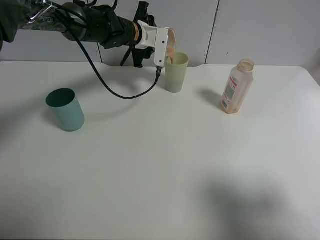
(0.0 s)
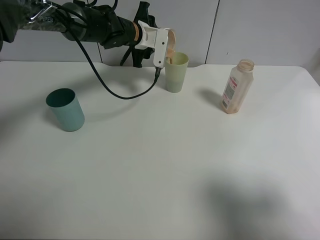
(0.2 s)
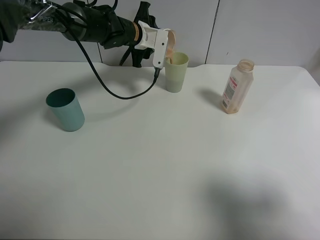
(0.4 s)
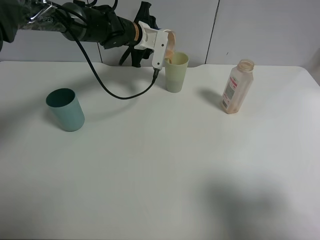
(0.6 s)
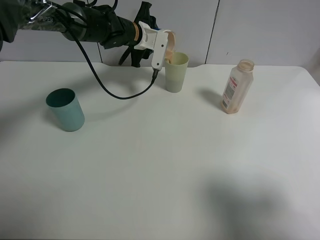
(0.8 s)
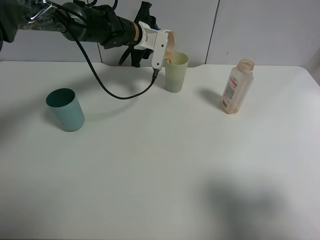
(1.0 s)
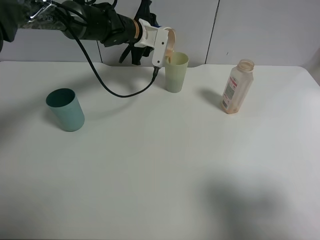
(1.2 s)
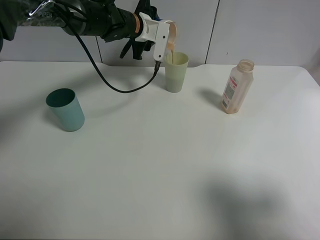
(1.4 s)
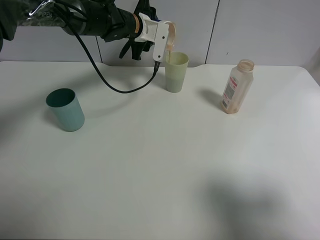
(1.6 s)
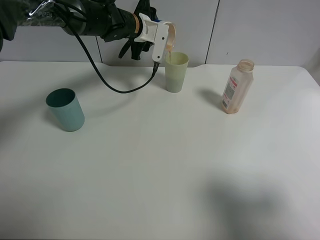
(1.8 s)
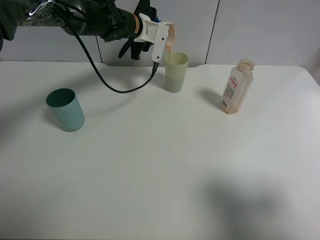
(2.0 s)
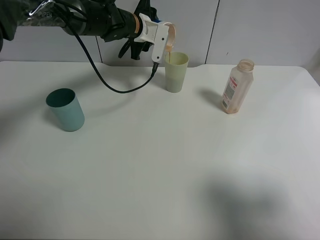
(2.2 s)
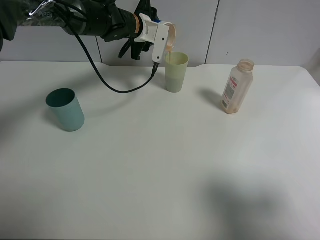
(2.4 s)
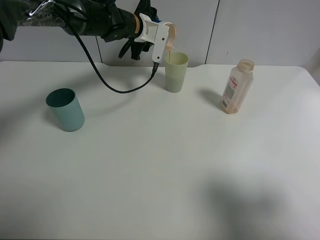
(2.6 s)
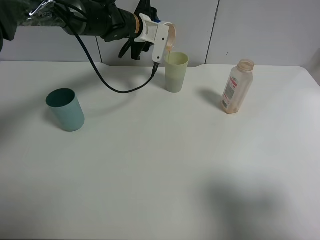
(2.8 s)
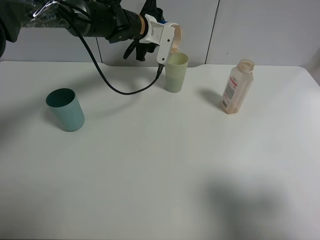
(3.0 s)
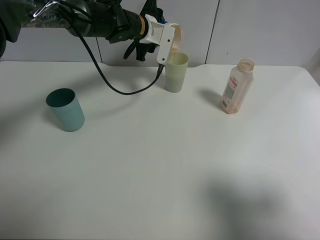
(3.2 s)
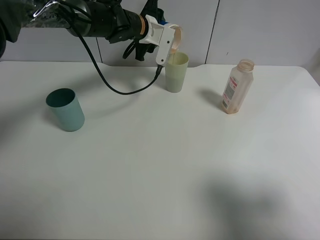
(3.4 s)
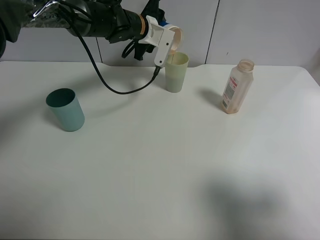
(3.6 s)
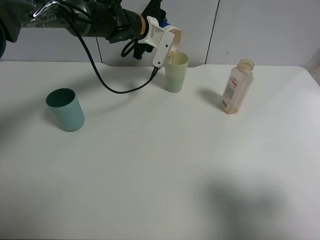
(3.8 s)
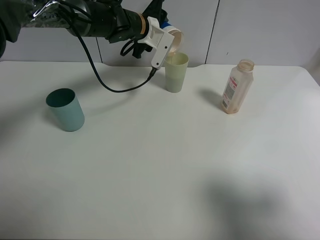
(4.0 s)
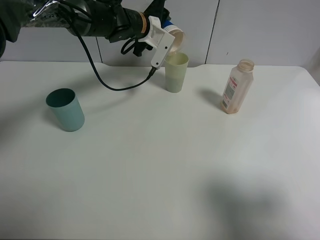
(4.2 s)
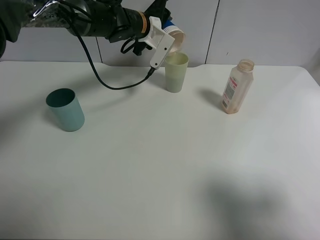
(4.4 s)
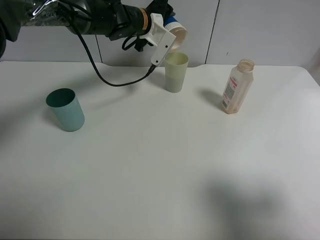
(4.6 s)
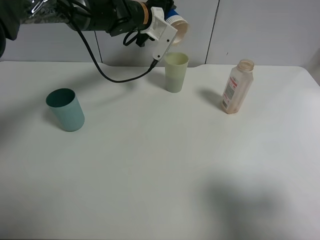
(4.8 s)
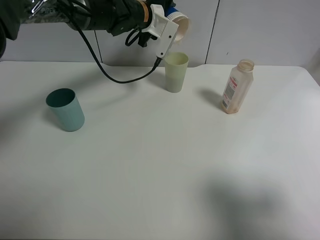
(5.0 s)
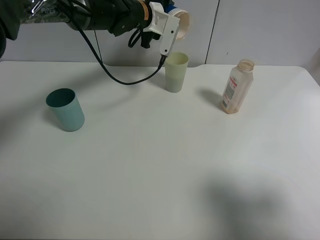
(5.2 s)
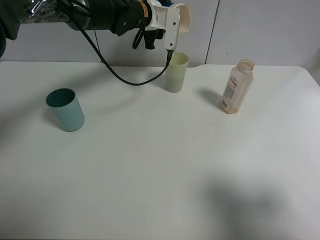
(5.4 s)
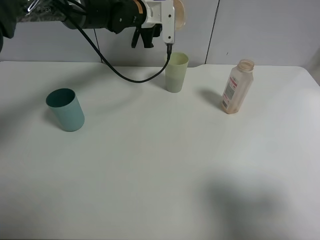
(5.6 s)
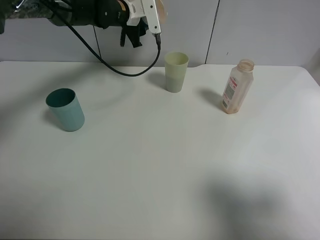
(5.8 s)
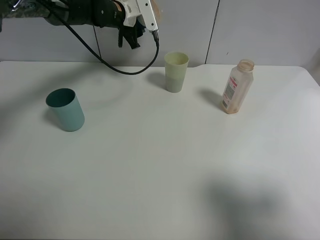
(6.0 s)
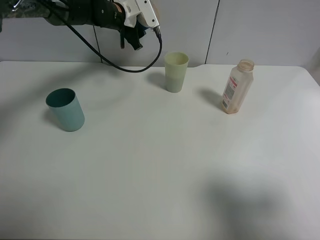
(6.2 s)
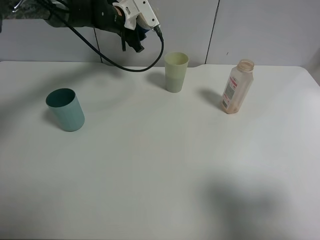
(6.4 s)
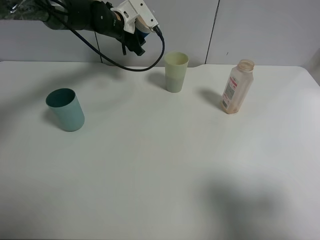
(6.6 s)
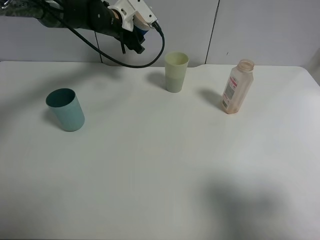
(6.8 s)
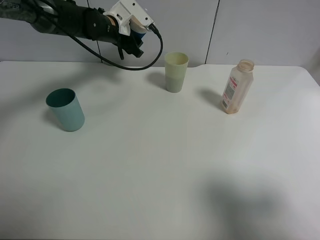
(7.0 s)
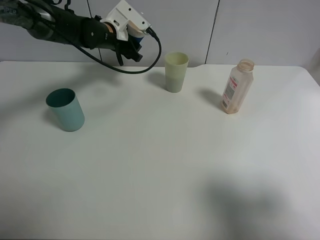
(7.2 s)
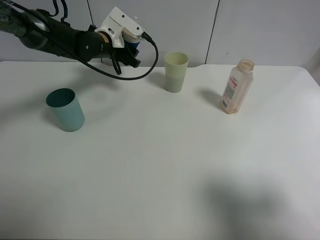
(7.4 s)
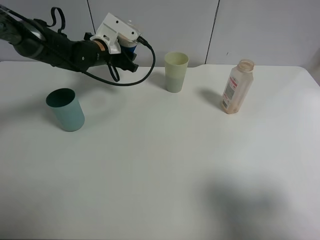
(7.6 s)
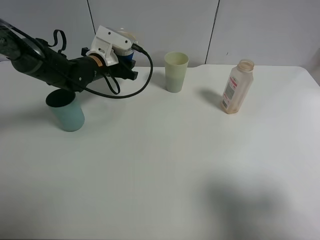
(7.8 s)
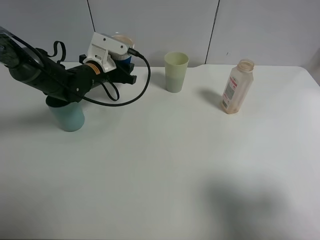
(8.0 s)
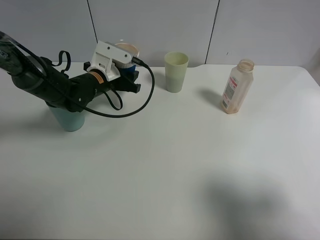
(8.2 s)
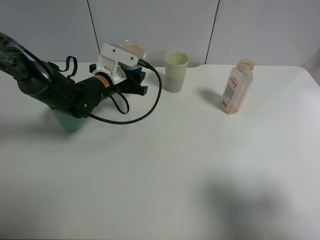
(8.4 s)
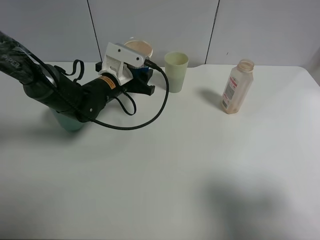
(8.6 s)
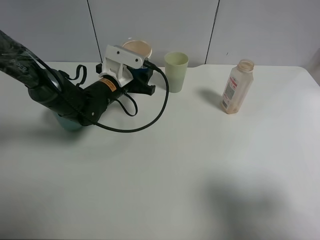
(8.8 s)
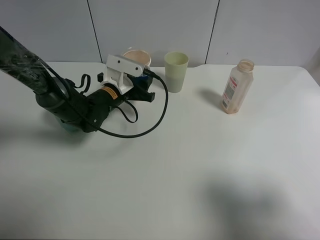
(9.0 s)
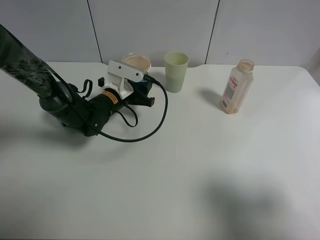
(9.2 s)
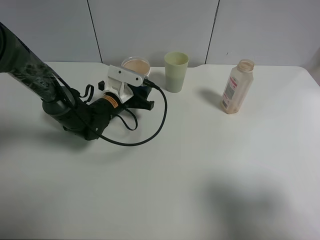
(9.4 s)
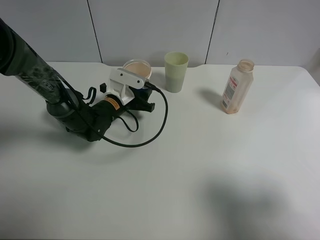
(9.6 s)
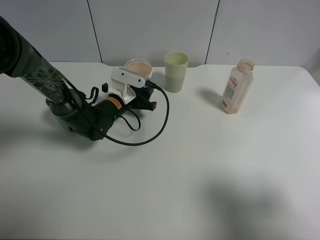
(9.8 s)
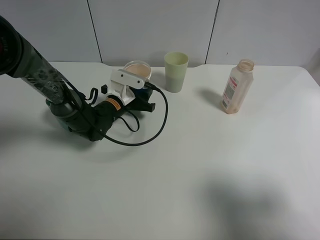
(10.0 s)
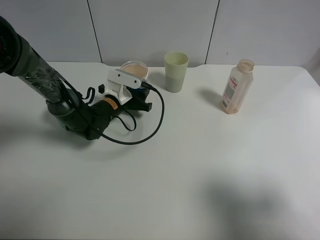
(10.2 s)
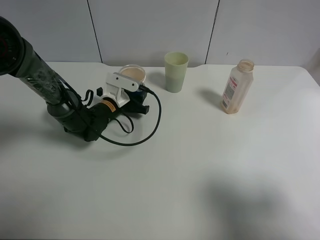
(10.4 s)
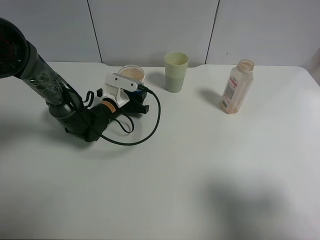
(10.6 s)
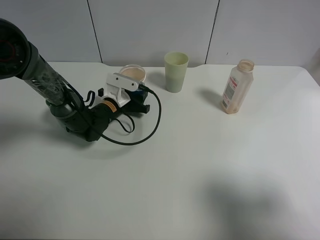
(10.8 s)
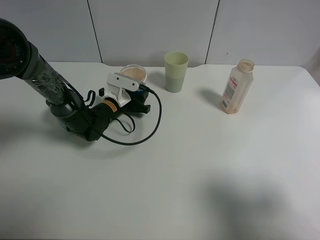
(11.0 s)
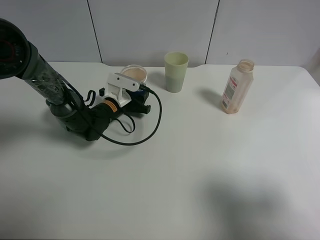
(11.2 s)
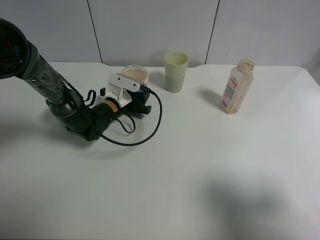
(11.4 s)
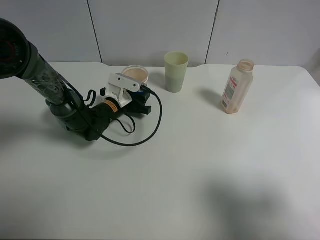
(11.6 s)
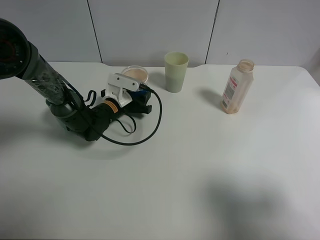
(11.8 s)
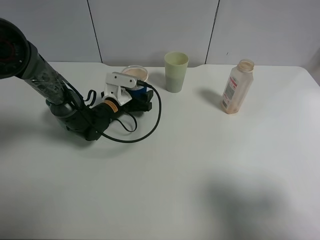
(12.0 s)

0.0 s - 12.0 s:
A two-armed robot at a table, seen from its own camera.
Task of the whole recording: use a clamp to hold the bottle of the drink, pour the beverage into a random cup, then clamp the cup containing the drink and pour the drink into another random cup.
Step, 0.0 s - 5.2 s: Pour the water into the green plastic cup with left gripper.
0.0 s - 1.6 s: There are only small adjustments of the grippers.
1.6 s - 3.0 s: The two grippers keep their place.
3.0 s - 4.4 s: The grippers make only small movements.
4.4 s - 6.0 s: The left gripper moves to the left, approximately 5 cm.
6.0 s - 7.6 s: The left gripper moves backward and downward, approximately 10 cm.
7.6 s - 9.0 s: The left gripper shifts approximately 10 cm backward and downward.
9.0 s - 10.4 s: The left gripper shifts roughly 5 cm downward.
10.4 s - 12.0 s: The grippers make only small movements.

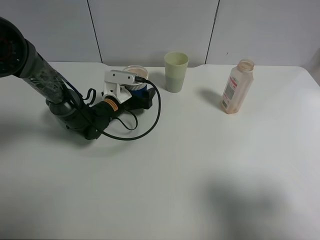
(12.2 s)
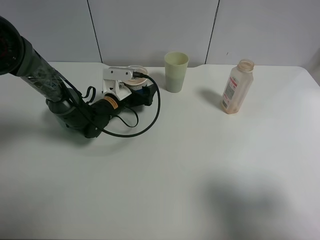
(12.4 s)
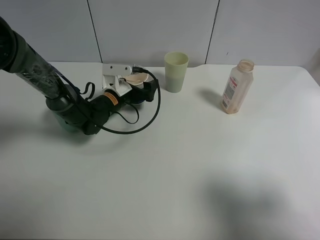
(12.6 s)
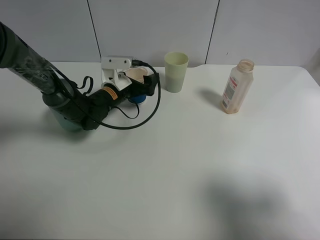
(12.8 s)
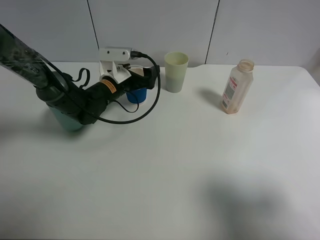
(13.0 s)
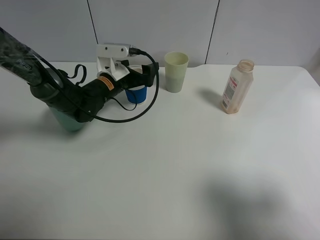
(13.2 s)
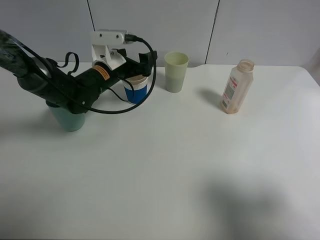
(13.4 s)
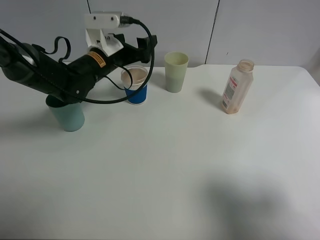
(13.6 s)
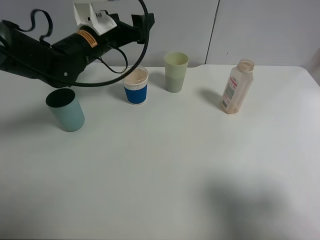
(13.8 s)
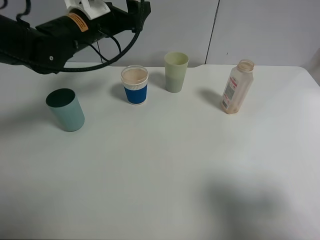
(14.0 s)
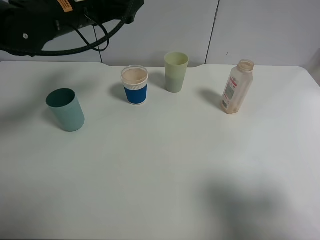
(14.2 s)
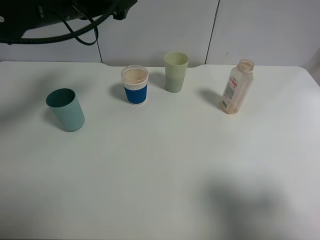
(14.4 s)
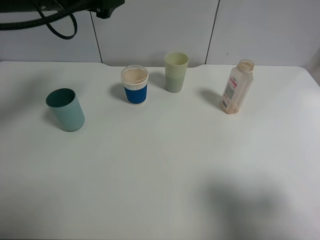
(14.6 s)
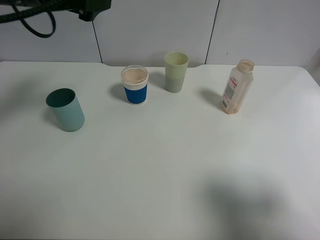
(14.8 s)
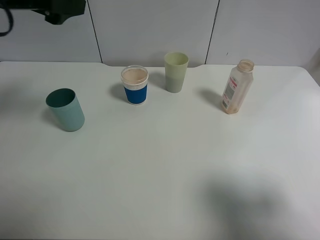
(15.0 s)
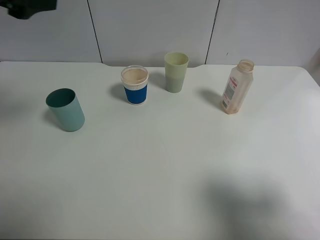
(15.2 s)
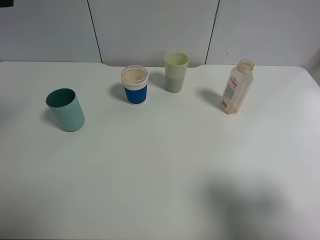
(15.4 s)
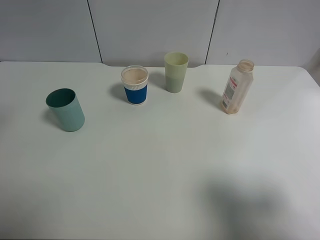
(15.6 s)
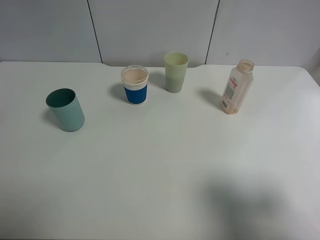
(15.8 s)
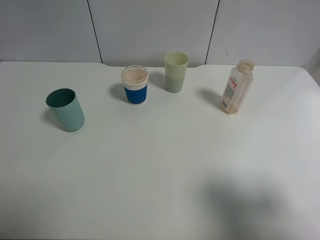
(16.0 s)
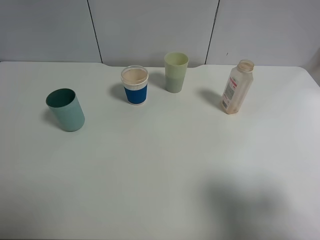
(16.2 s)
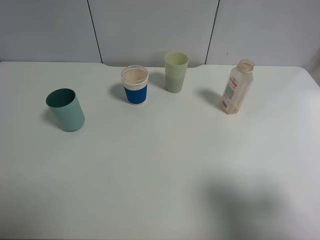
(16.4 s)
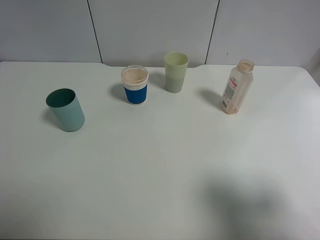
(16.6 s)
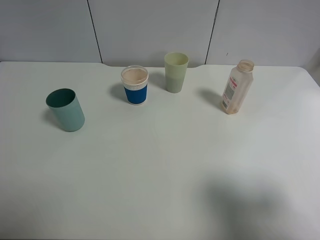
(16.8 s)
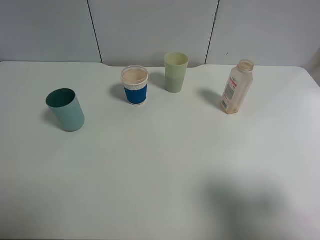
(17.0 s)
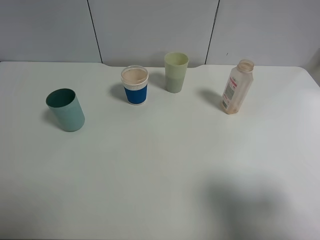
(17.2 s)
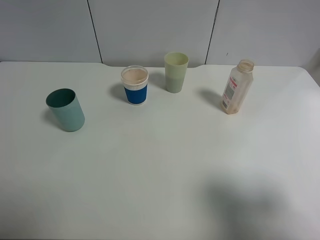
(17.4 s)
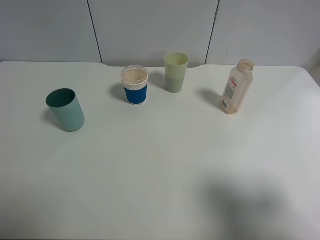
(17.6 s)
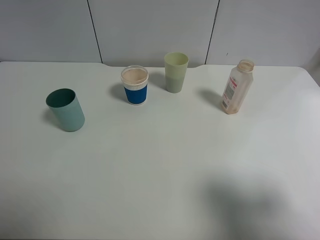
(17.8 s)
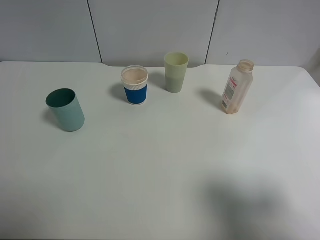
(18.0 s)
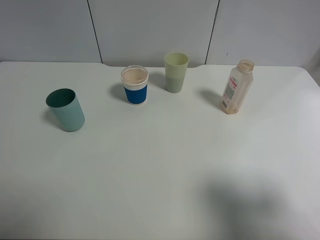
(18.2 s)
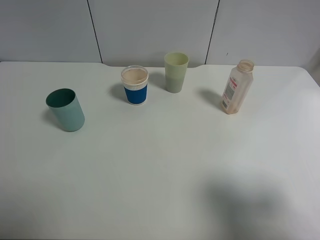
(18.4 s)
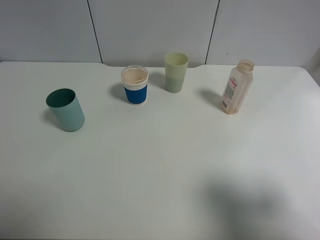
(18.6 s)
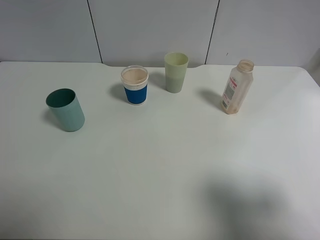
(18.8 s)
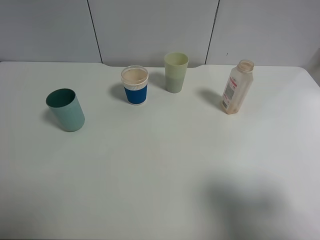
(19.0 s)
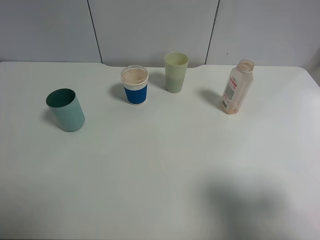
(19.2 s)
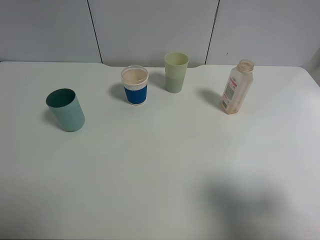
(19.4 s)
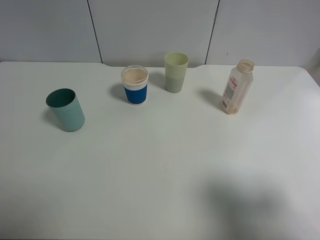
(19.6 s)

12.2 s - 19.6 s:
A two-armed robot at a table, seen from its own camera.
Task of the whole recording: use a clamp to hold the bottle of the drink, pour the beverage into a random cup, then clamp the cup containing the drink and pour the drink into another random cup.
12.2 s - 13.6 s: The left gripper heads upward, covering approximately 10 cm.
13.6 s - 15.2 s: The left gripper heads upward, backward and to the left, covering roughly 25 cm.
15.2 s - 16.6 s: The left gripper heads backward and to the left, covering roughly 25 cm.
